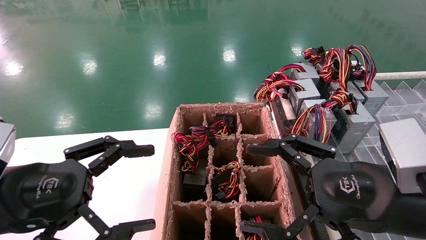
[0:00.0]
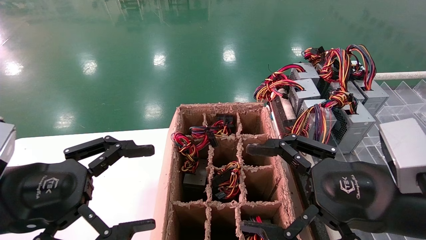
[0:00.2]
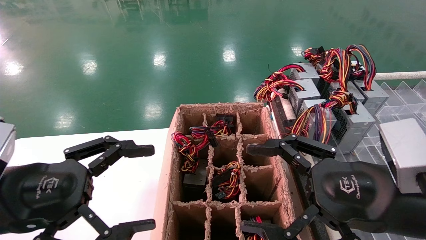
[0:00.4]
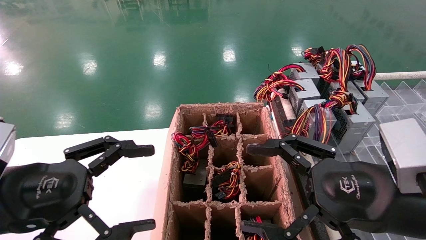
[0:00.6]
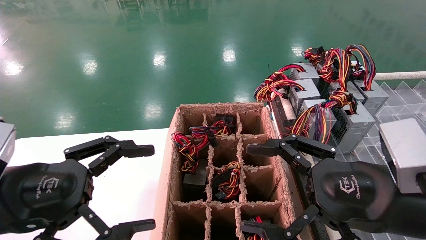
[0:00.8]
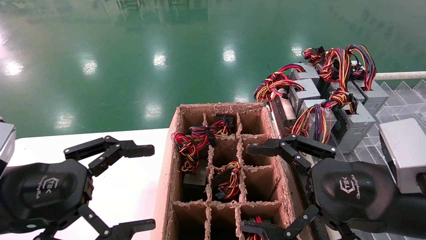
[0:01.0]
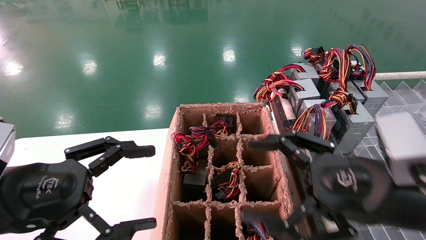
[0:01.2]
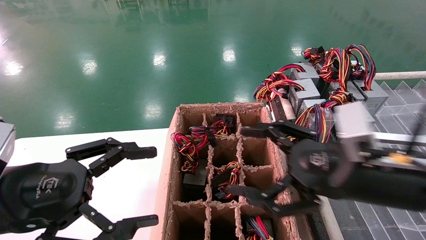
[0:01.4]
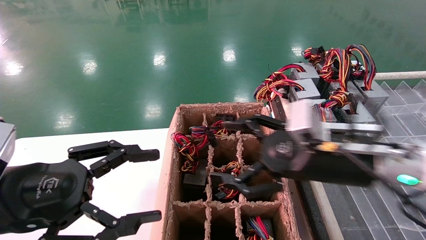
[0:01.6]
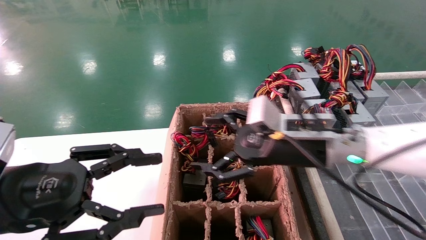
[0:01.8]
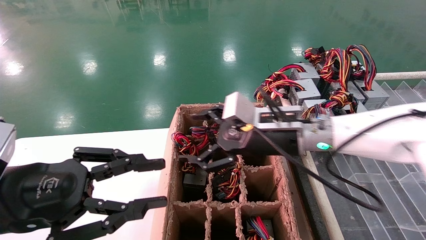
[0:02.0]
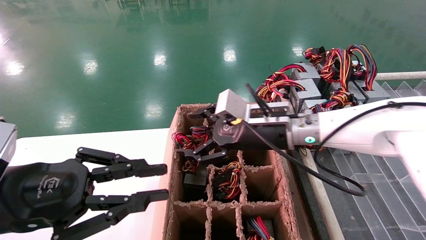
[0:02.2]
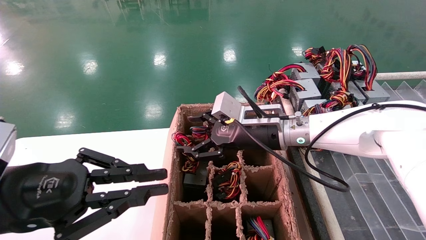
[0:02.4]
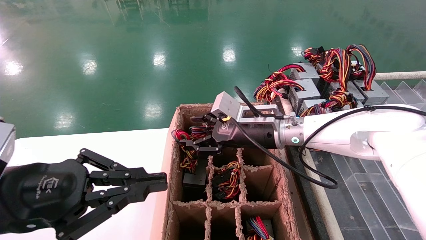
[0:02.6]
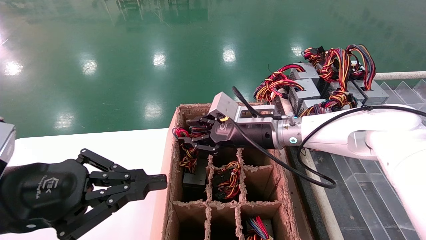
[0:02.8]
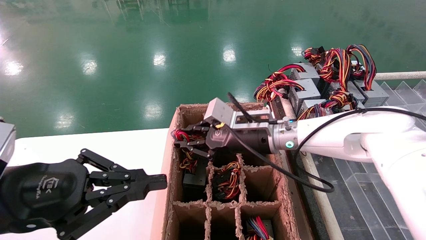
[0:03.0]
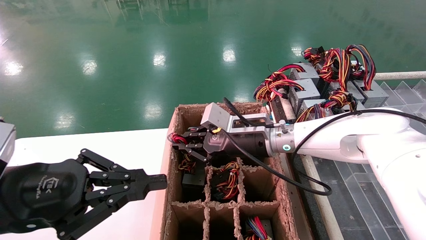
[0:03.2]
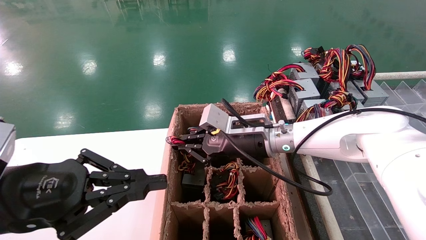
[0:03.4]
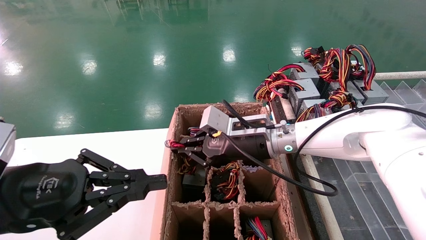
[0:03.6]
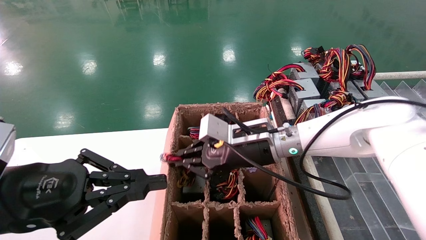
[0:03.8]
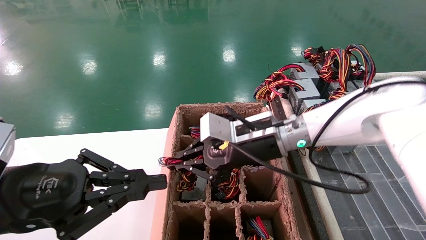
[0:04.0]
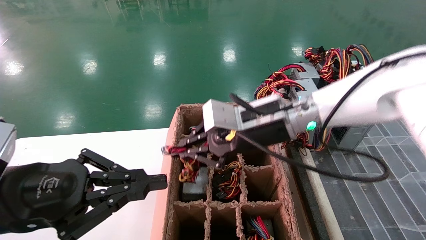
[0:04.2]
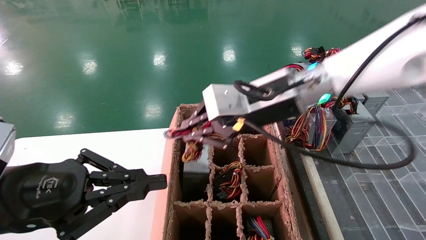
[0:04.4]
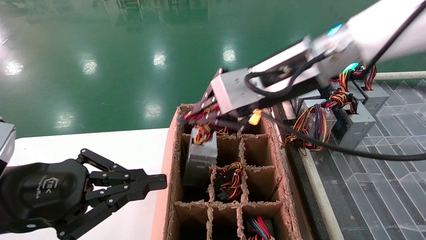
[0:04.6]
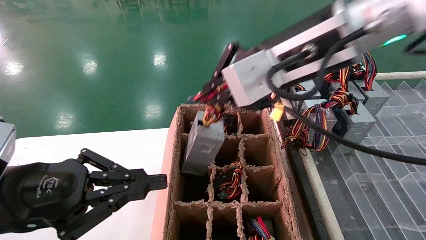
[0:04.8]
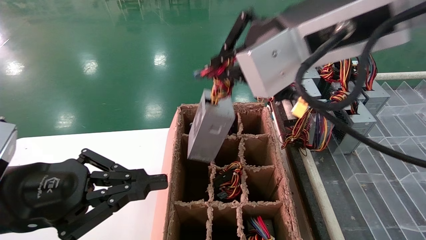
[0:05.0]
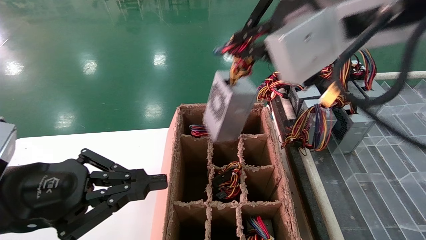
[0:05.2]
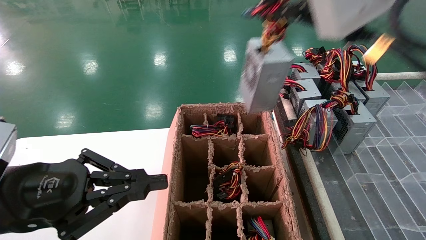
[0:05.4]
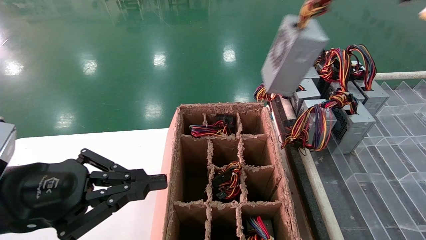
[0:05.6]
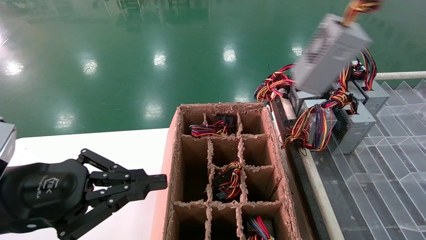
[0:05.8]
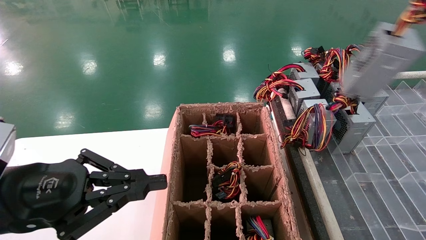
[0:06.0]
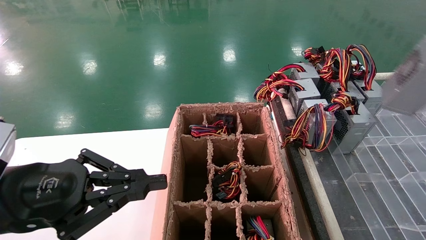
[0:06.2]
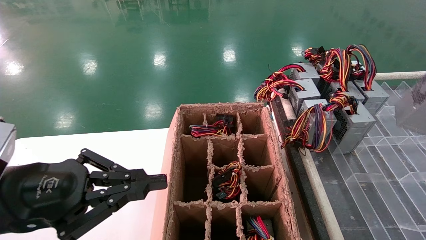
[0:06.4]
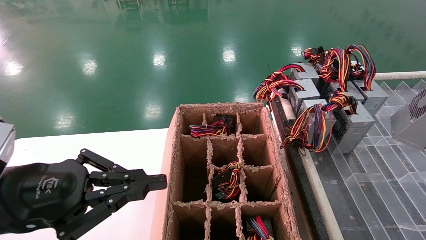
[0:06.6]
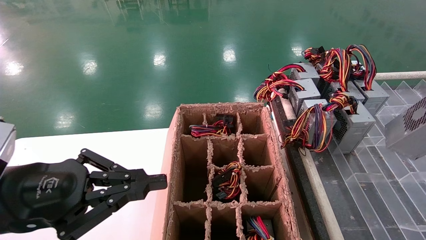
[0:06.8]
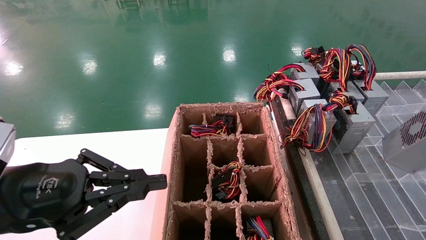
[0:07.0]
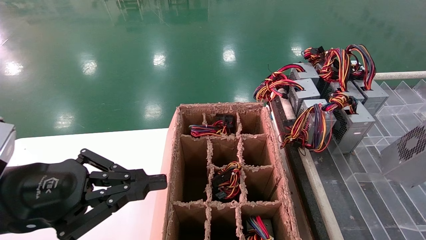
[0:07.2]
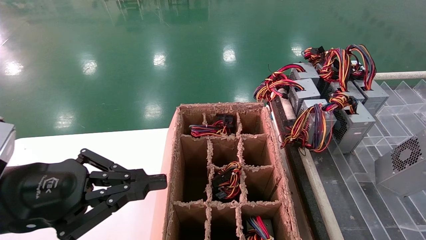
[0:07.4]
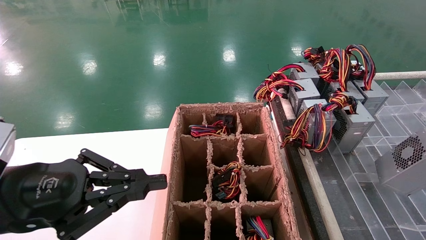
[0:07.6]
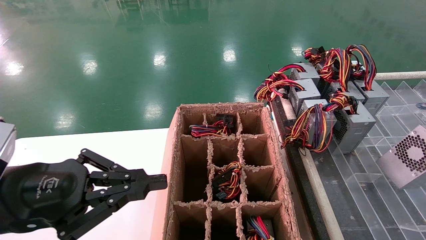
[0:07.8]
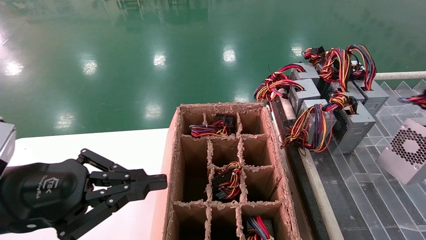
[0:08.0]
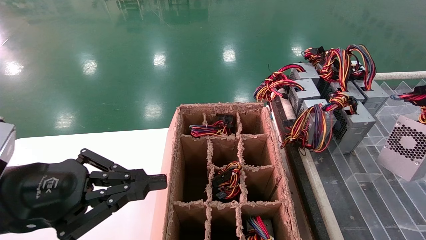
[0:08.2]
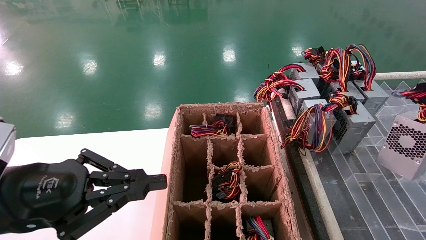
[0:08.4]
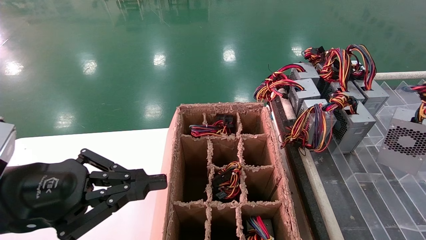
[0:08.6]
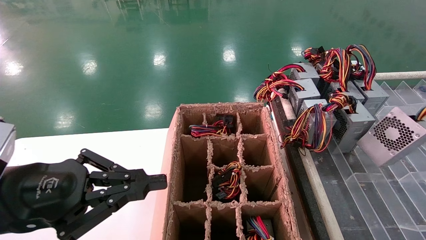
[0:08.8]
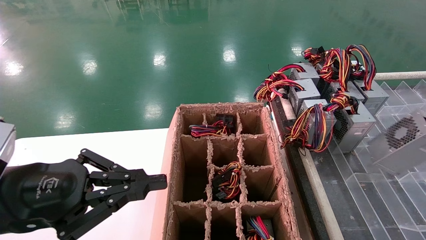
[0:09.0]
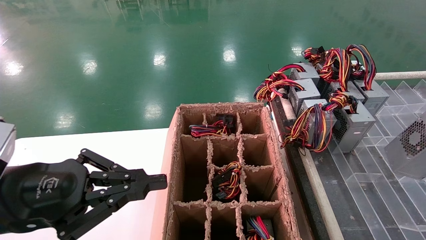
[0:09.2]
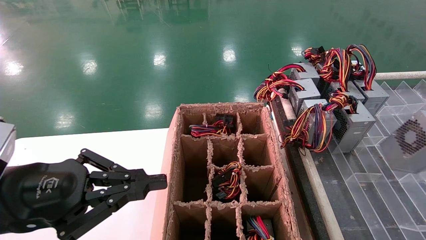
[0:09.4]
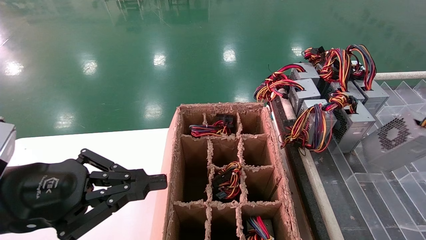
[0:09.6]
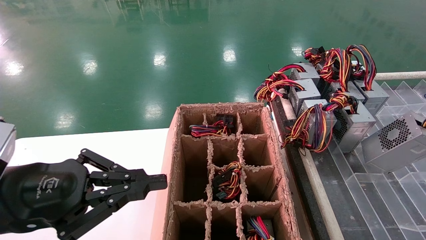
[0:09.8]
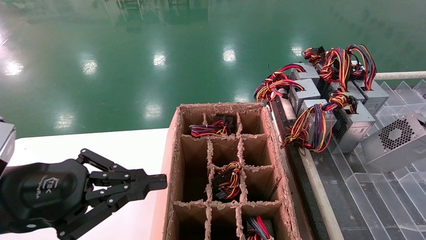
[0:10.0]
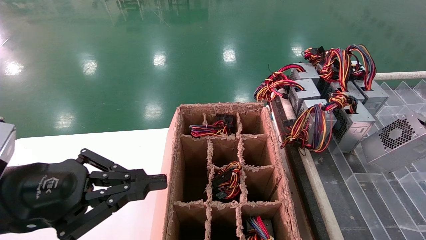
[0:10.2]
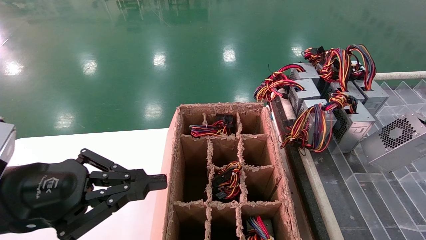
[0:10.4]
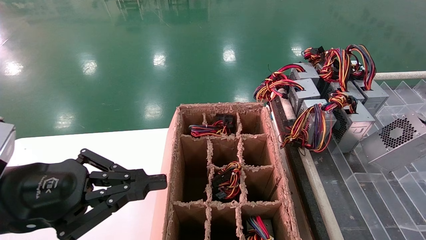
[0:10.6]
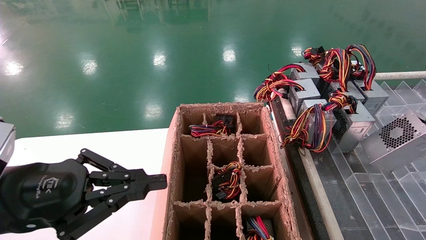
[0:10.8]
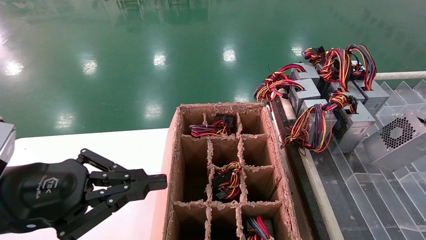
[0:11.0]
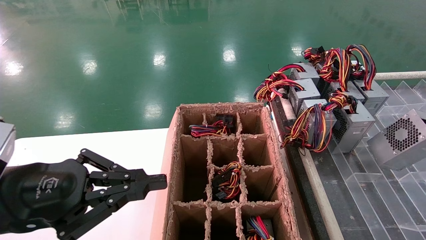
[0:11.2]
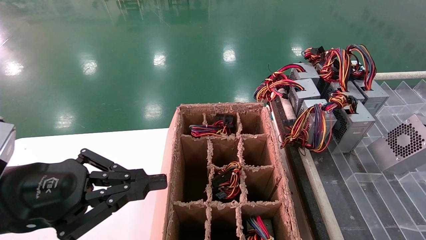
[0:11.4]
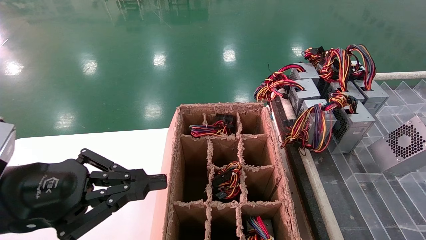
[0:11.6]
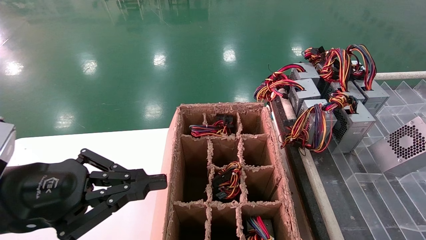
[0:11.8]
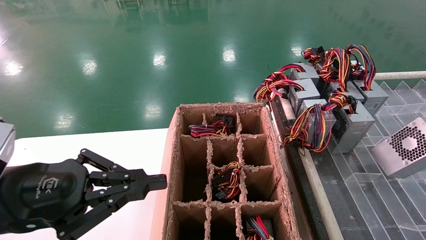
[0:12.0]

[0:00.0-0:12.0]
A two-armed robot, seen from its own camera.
Step, 0:01.6 to 0:03.4: Grab the main unit power supply from the containment box.
0:00.0 to 0:01.6: The right gripper travels forward by approximately 10 cm.
0:01.6 to 0:03.0: The right gripper is displaced forward and to the left by some 15 cm, and closes up, while the left gripper closes up.
0:03.0 to 0:04.4: The right gripper is displaced upward and backward by about 15 cm.
0:04.4 to 0:06.0: The right gripper is displaced to the right, backward and upward by some 35 cm.
0:06.0 to 0:07.6: The right gripper heads downward and to the right, covering roughly 15 cm.
0:07.6 to 0:12.0: The grippers make only small movements.

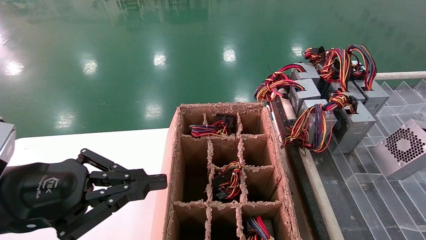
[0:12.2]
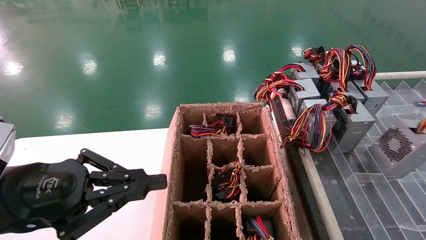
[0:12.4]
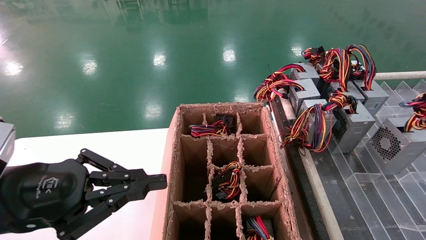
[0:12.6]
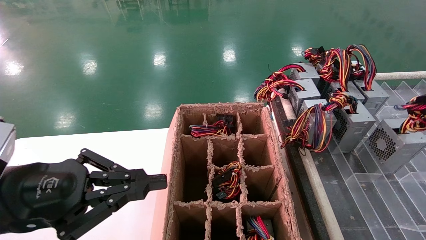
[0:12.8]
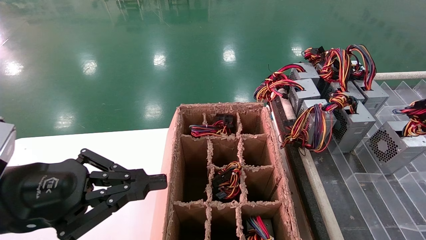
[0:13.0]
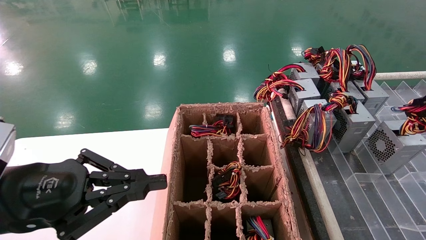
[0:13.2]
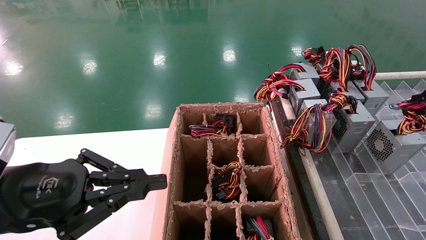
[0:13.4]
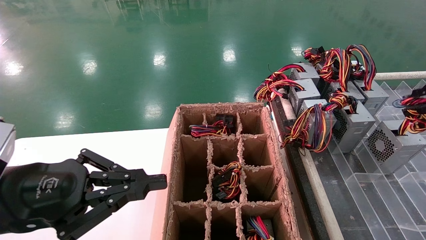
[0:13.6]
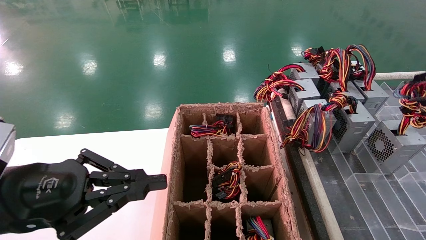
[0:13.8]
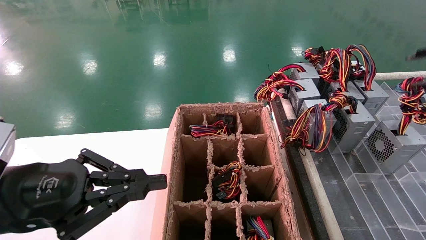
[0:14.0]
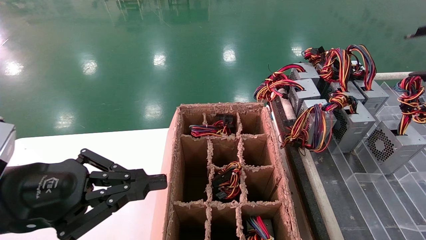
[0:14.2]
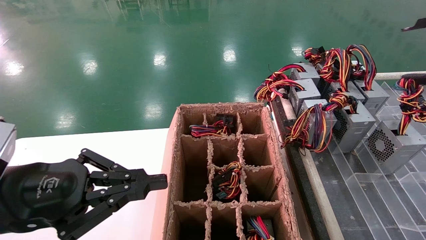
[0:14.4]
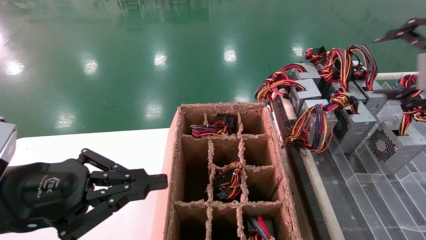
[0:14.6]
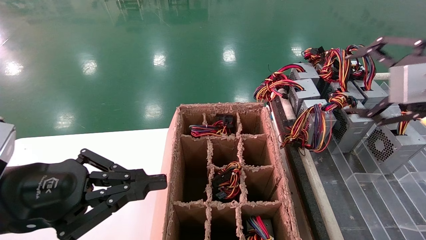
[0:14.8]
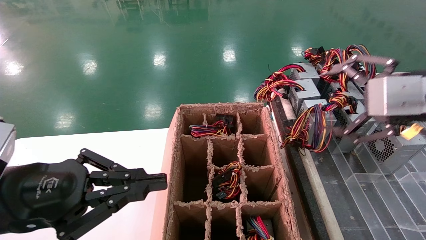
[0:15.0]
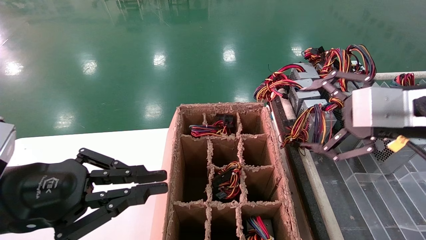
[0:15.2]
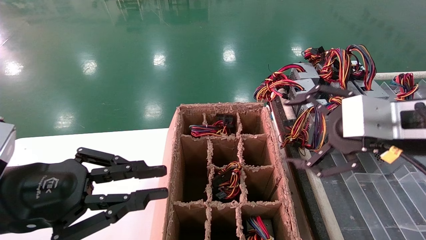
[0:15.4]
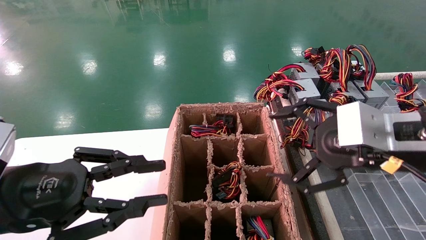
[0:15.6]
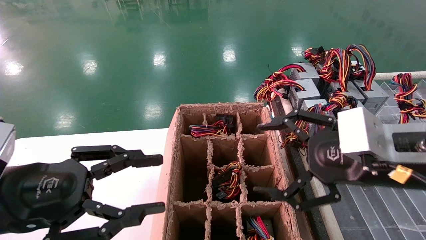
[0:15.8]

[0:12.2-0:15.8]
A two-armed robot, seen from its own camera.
Step, 0:12.2 to 0:14.2: Place the main unit power supply in the designated area.
0:12.2 to 0:14.0: The right gripper shifts by about 5 cm.
0:14.0 to 0:15.8: The right gripper heads to the left and downward, covering some 20 cm, and opens up.

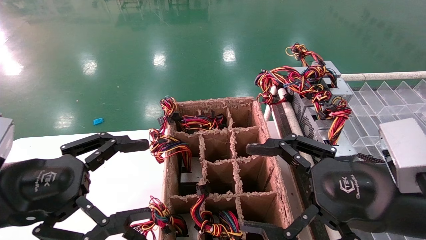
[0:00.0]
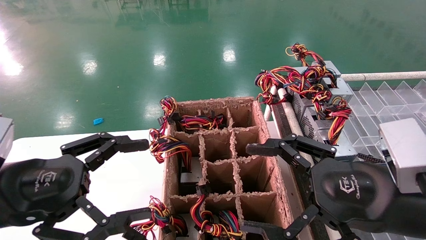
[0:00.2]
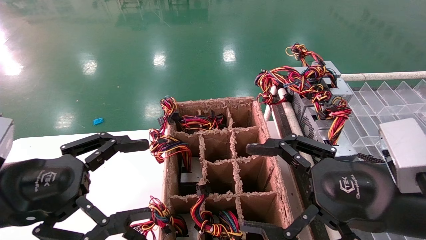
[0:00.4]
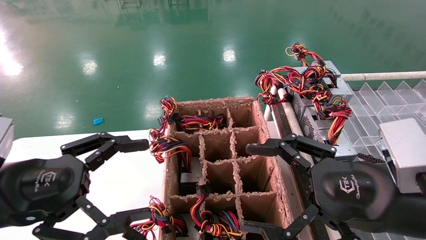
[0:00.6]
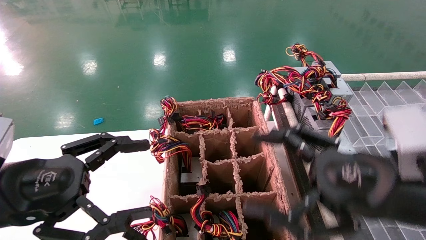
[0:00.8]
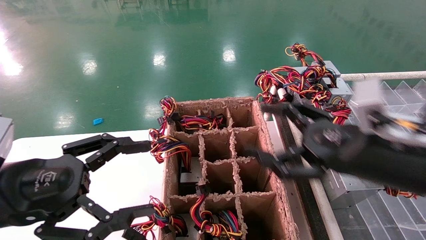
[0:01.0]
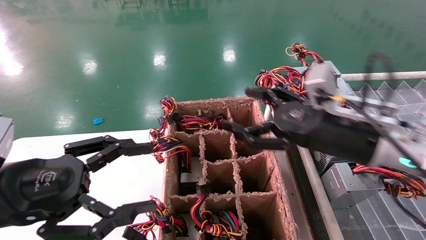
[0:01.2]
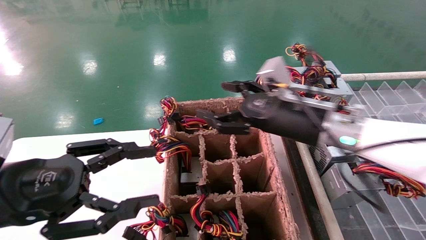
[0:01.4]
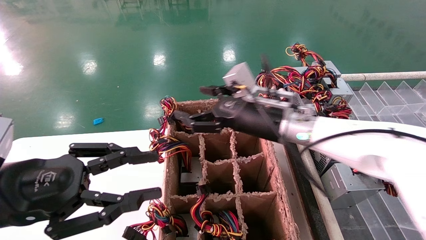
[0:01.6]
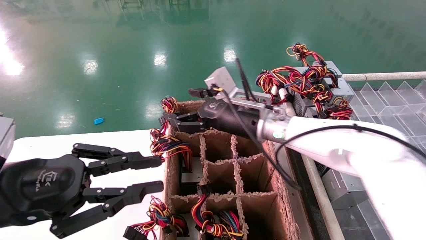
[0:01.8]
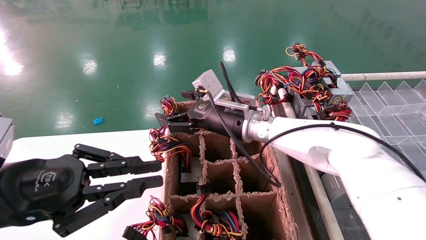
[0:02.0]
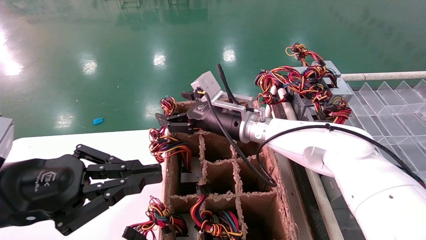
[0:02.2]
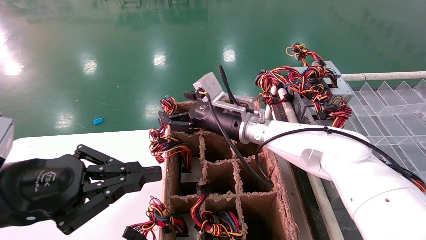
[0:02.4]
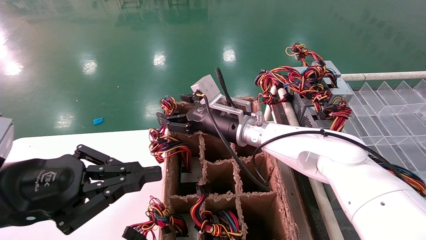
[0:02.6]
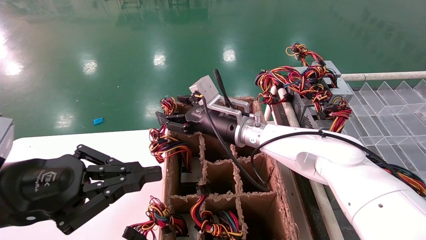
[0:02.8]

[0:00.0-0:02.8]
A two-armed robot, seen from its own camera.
0:00.0 to 0:01.4: The right gripper heads forward and to the left, covering some 20 cm.
0:01.4 to 0:02.8: The right gripper heads to the left and forward, covering about 15 cm, while the left gripper closes.
